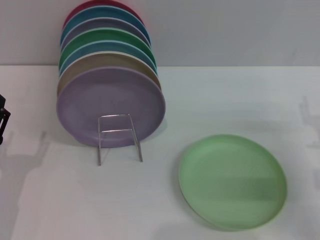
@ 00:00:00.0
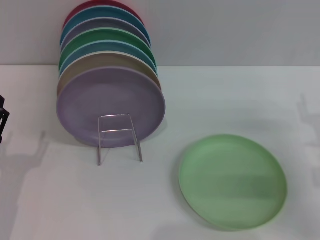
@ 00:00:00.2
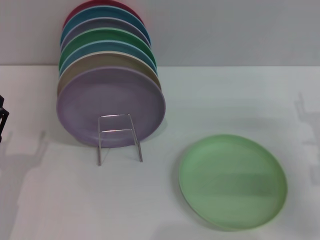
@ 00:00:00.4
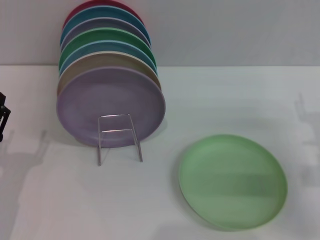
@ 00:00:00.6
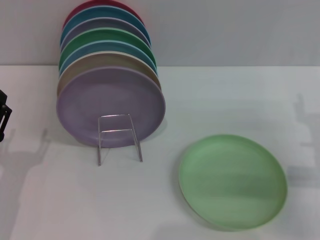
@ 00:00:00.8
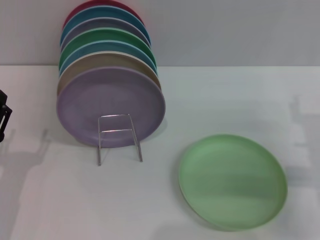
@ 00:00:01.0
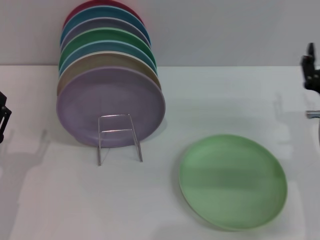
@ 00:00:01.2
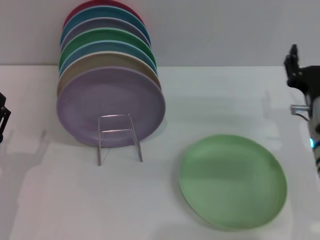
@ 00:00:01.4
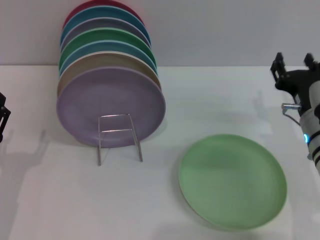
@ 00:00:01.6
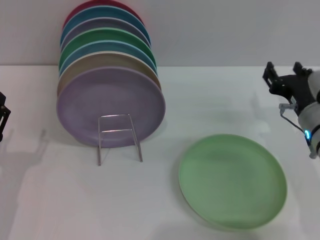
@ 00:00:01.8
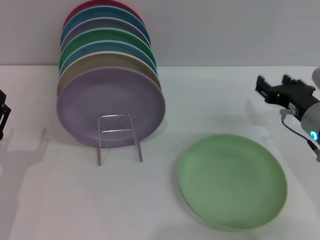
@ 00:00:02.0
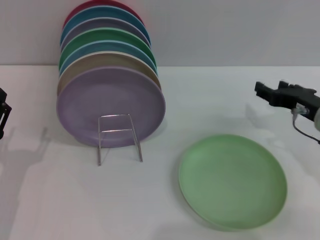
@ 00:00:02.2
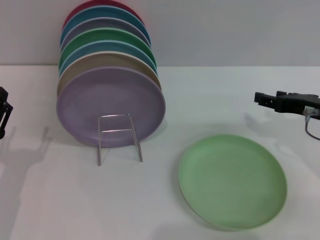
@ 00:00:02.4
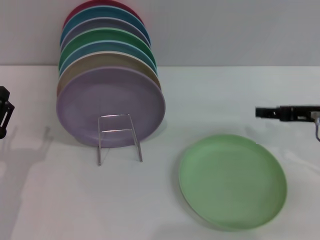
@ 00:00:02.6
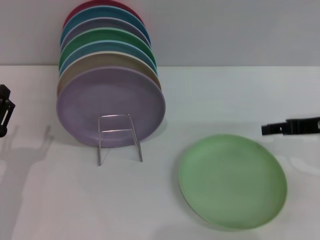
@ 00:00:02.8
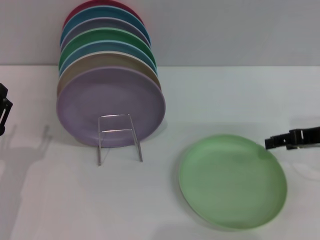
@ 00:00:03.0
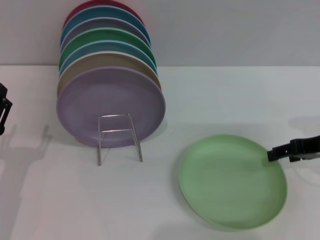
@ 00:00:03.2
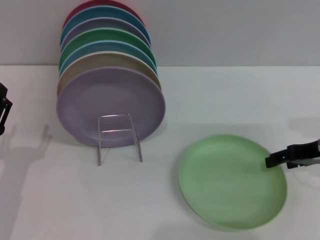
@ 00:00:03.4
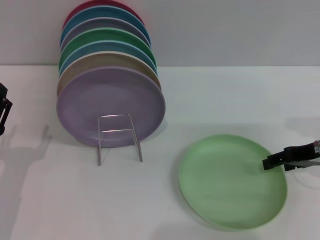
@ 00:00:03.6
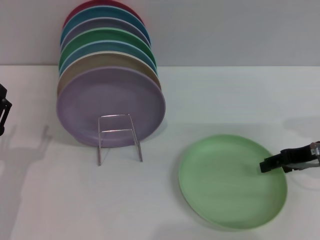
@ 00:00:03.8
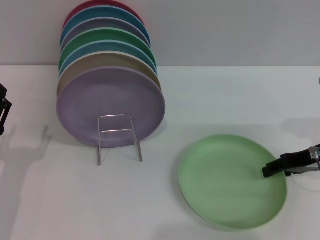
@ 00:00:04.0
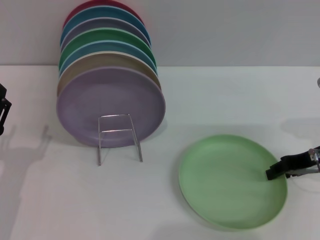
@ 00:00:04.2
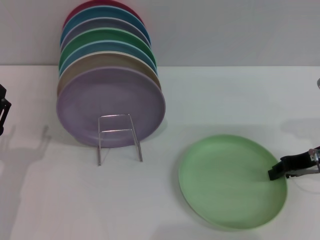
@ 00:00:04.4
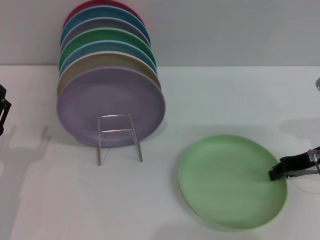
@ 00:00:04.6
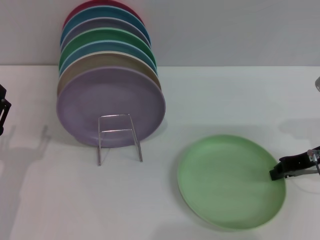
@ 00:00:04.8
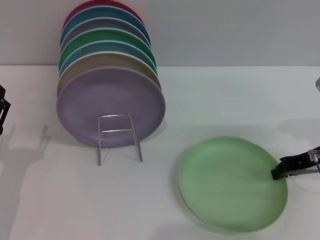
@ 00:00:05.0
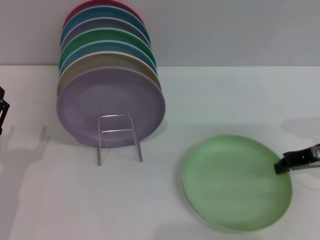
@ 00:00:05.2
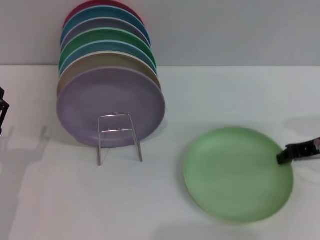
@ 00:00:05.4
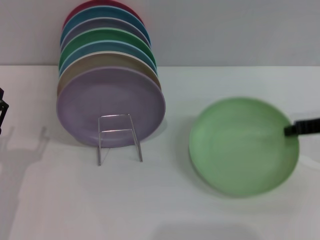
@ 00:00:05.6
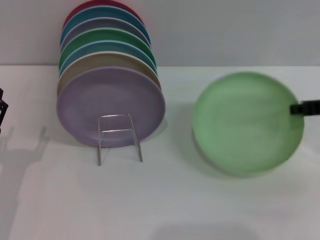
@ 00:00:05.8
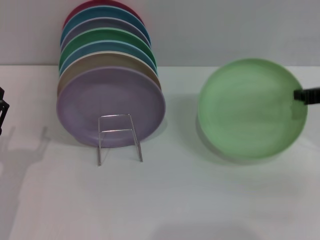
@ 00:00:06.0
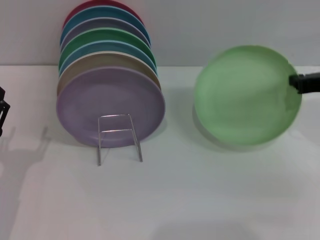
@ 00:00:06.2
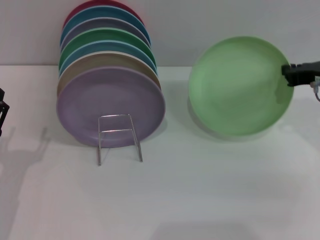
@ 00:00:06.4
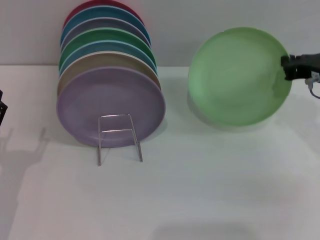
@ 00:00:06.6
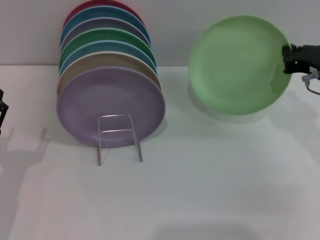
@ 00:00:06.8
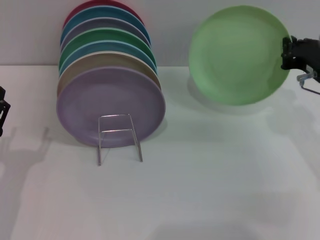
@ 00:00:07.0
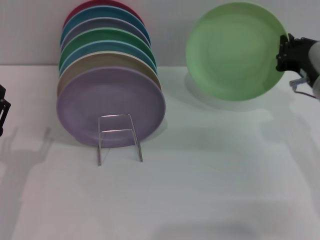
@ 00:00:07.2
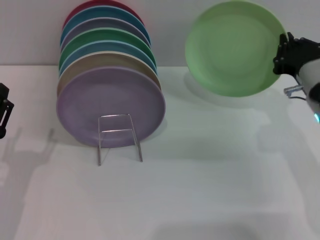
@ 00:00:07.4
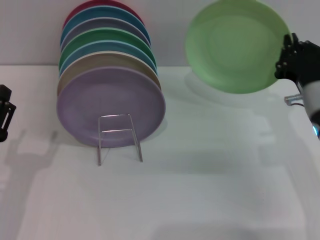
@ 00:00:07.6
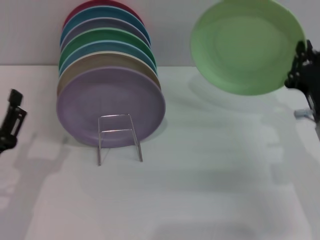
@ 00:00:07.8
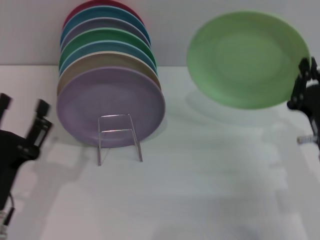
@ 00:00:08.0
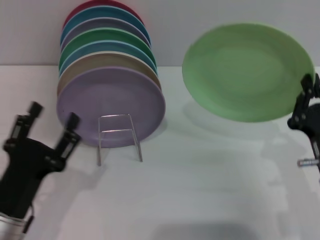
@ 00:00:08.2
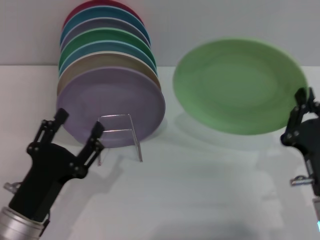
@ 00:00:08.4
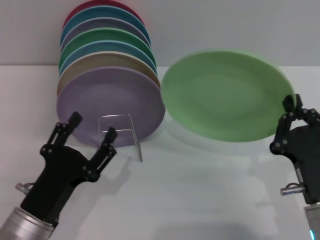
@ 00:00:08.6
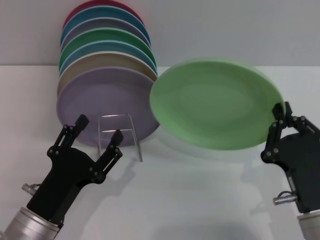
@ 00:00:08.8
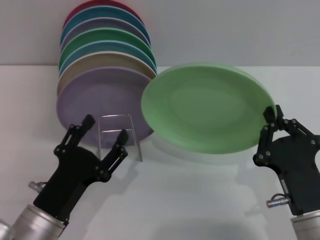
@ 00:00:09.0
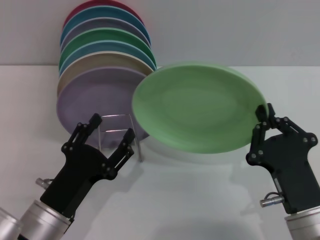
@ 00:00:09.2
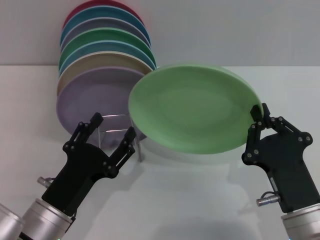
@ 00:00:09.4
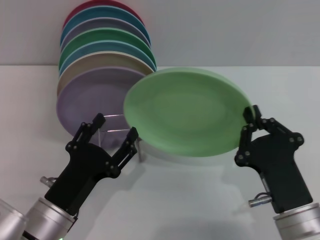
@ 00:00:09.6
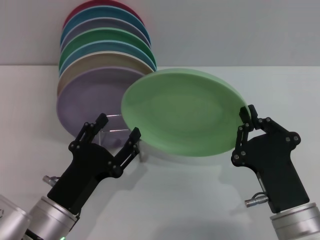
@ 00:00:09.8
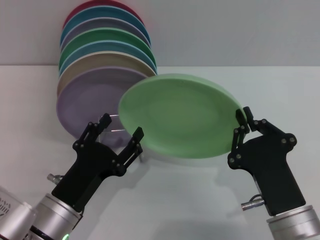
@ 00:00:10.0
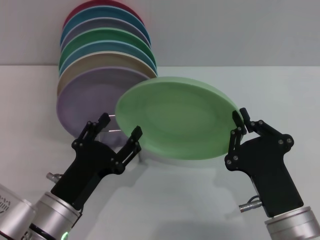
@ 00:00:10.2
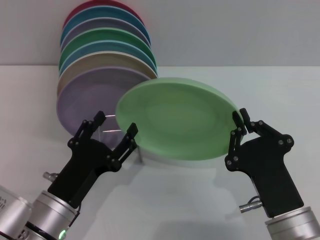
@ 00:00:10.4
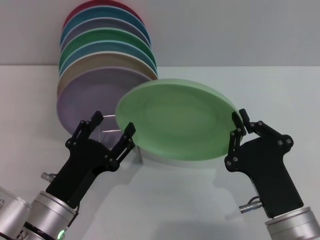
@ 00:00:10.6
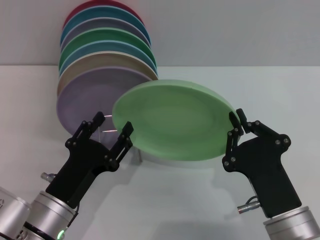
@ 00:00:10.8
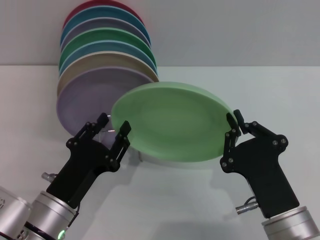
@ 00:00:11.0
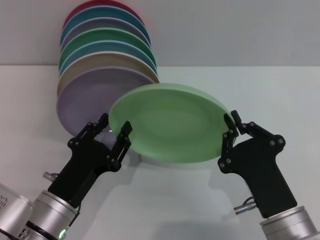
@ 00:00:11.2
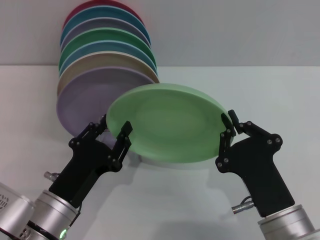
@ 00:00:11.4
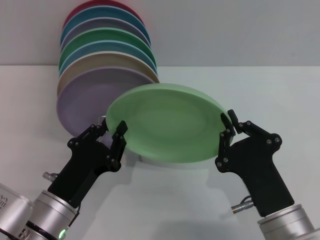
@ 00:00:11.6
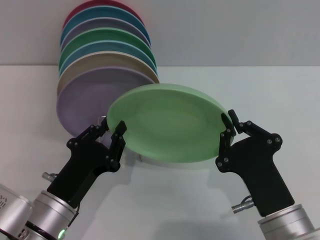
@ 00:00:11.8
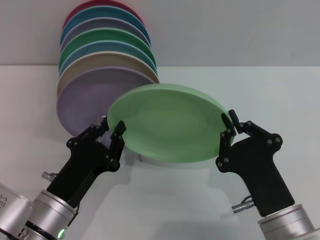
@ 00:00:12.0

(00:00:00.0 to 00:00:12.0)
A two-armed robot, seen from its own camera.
Task of the whole recording: Grip the plate with one hand, pass it to the other, then set it on the shelf.
Step, 00:00:00.0 - 00:00:06.4: Pick up the plate with the right gripper.
00:00:00.0 - 00:00:01.6: The right gripper heads to the left, covering approximately 10 cm.
00:00:01.6 - 00:00:03.0: The right gripper goes roughly 10 cm to the right and upward.
00:00:03.0 - 00:00:04.4: The right gripper closes.
00:00:04.4 - 00:00:06.0: The right gripper is displaced upward by some 5 cm, and closes up.
00:00:06.0 - 00:00:07.6: The right gripper heads to the left and downward, covering approximately 10 cm.
00:00:07.6 - 00:00:09.0: The left gripper moves to the right, roughly 10 cm. Meanwhile the right gripper moves backward, some 15 cm.
00:00:10.4 - 00:00:12.0: The left gripper closes its fingers.

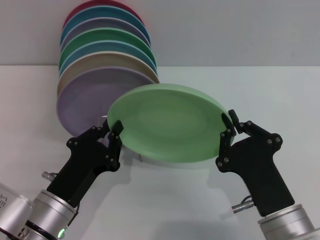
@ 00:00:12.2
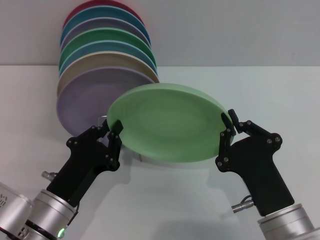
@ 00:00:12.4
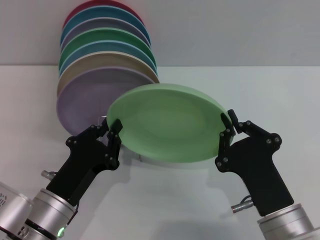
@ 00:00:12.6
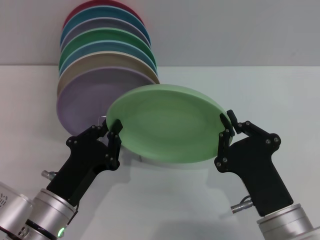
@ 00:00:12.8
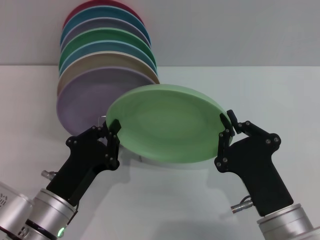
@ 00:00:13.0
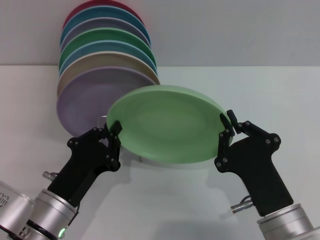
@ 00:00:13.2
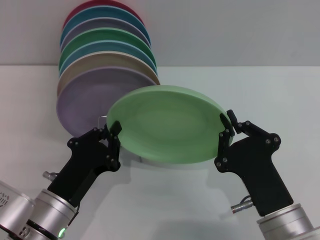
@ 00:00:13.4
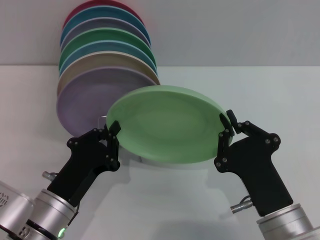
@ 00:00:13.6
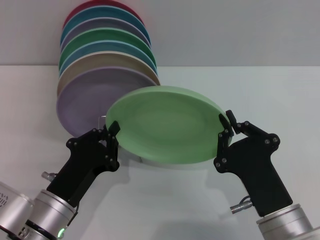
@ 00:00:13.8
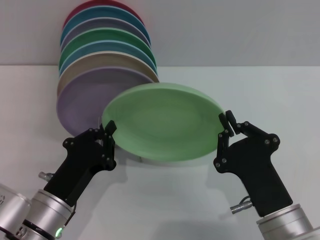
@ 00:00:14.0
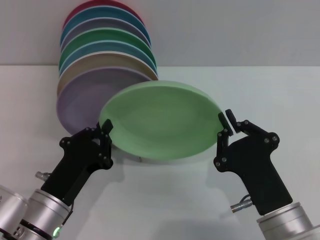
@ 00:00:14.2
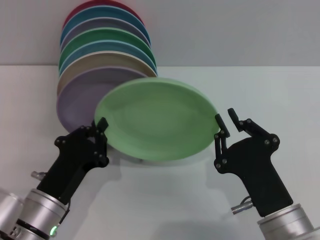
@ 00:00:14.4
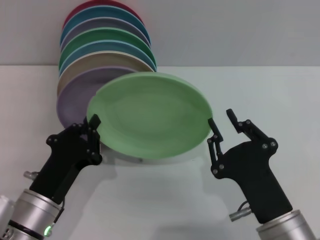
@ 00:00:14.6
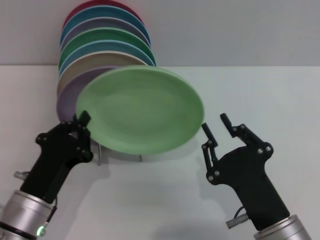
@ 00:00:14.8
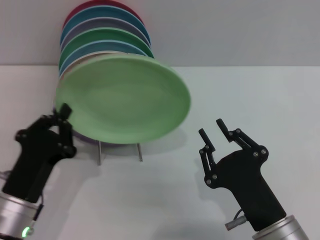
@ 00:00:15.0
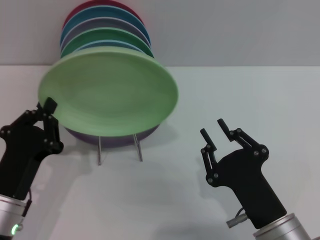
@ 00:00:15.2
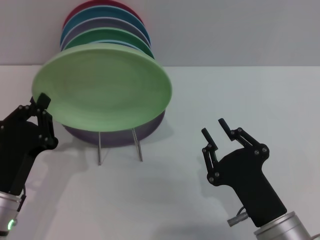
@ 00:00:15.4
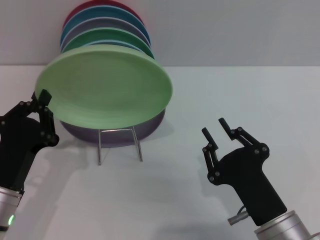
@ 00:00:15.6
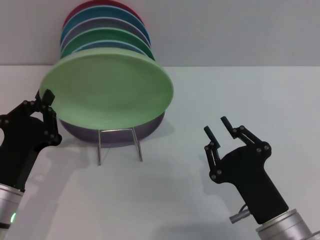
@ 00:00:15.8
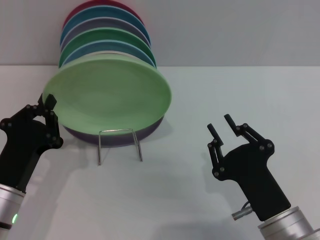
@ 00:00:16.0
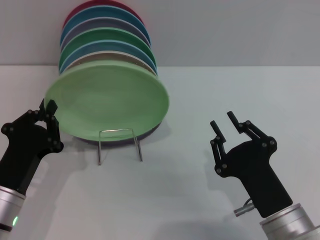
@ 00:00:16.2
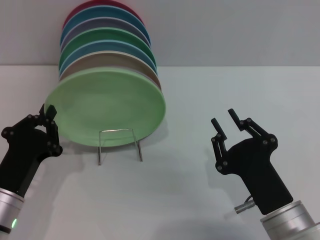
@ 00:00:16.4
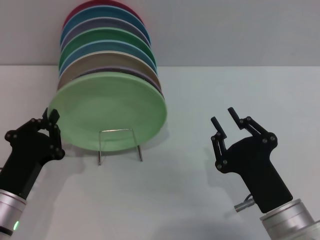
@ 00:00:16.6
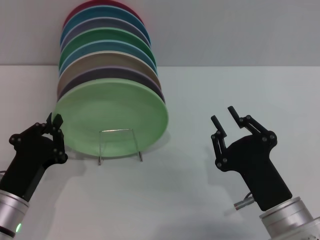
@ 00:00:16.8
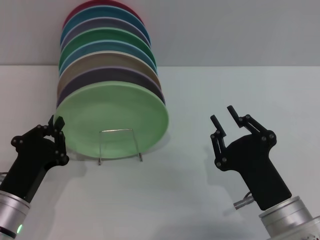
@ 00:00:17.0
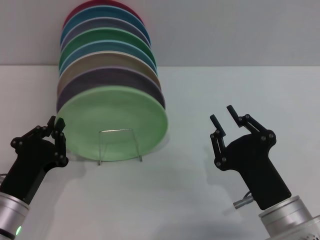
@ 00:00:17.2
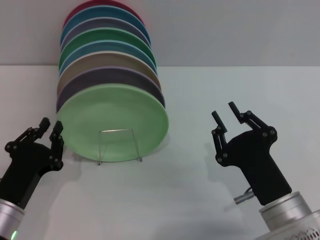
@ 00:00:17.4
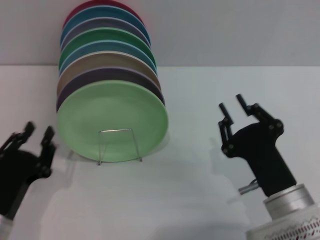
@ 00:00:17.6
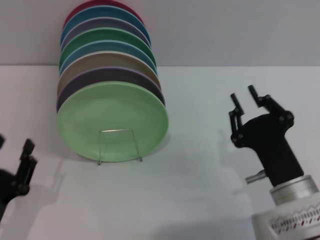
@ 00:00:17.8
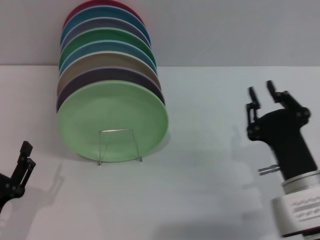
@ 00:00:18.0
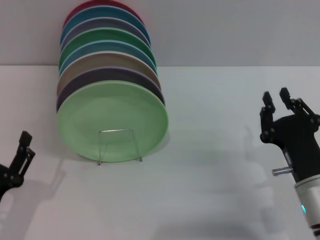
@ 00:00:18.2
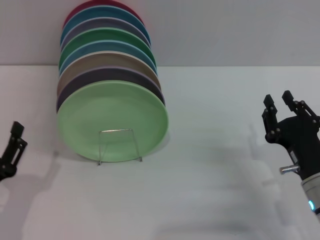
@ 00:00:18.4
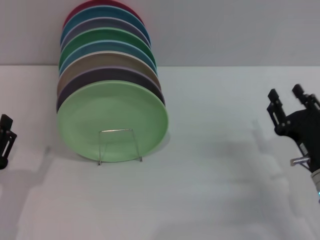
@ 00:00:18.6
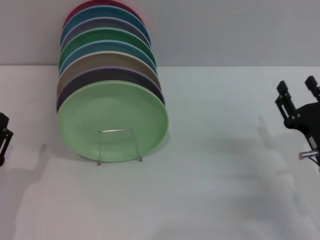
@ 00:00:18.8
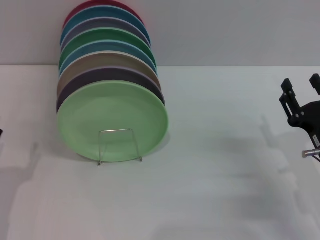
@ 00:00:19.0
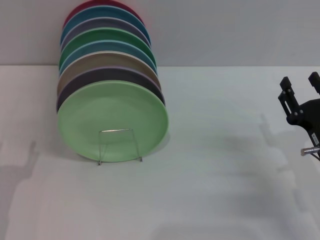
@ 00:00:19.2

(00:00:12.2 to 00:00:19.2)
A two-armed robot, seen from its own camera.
Task of the whole recording: Grip the plate with one hand, pass it to the other, then set it on the shelf.
Step, 00:00:12.2 - 00:00:14.4: Pass the plate from the right gripper to the left gripper.
Step, 00:00:14.6 - 00:00:17.8: Place the plate on the shelf with the left gripper.
00:00:12.2 - 00:00:13.6: Both grippers stay put.
00:00:13.6 - 00:00:15.0: The right gripper opens up.
00:00:15.0 - 00:00:16.4: The grippers make only small movements.
00:00:16.4 - 00:00:17.8: The left gripper shifts roughly 5 cm backward.
00:00:17.8 - 00:00:19.2: The left gripper opens. The right gripper shifts some 10 cm to the right, and opens.
